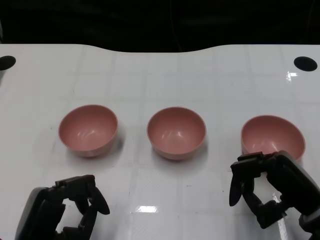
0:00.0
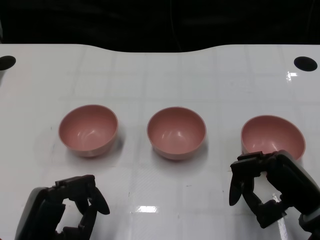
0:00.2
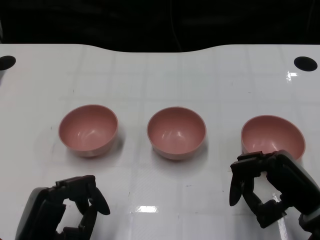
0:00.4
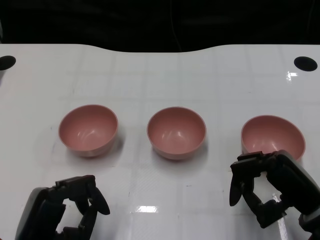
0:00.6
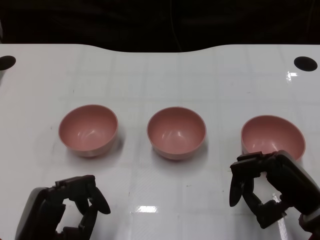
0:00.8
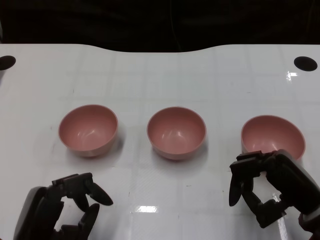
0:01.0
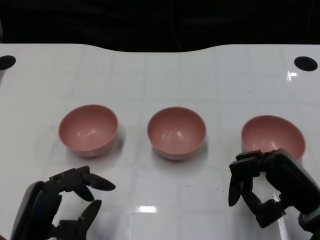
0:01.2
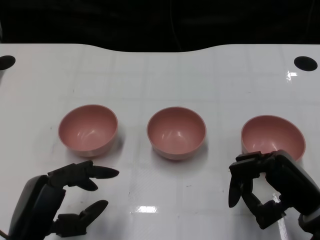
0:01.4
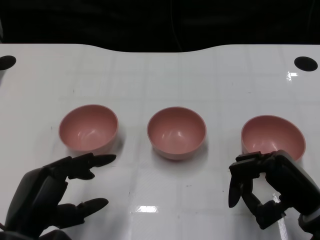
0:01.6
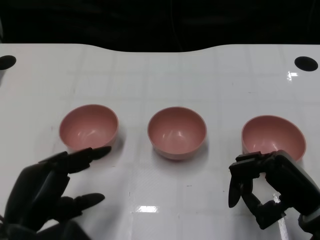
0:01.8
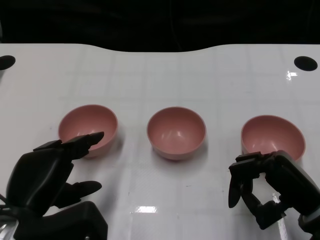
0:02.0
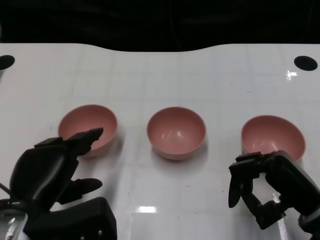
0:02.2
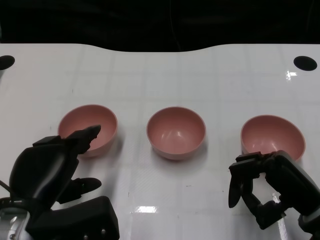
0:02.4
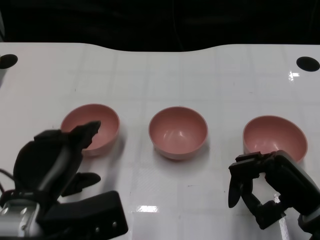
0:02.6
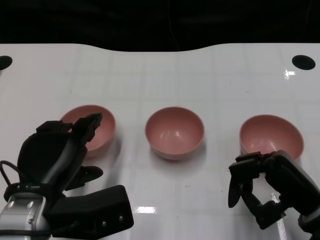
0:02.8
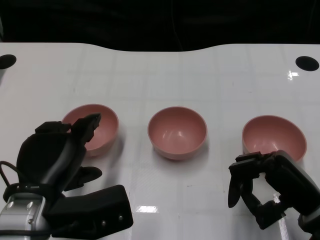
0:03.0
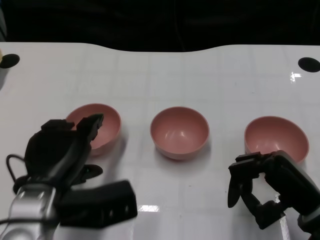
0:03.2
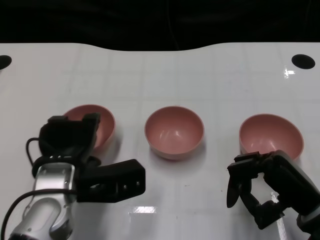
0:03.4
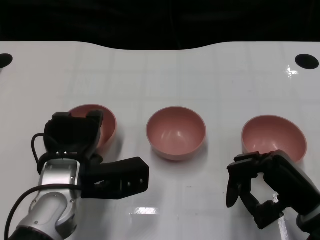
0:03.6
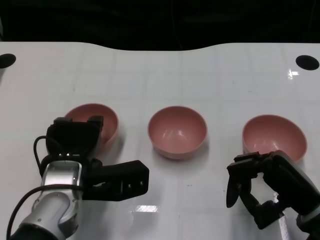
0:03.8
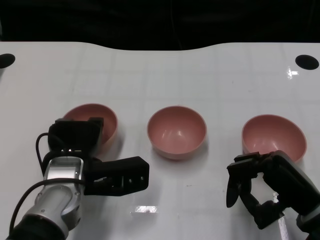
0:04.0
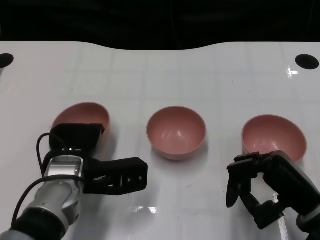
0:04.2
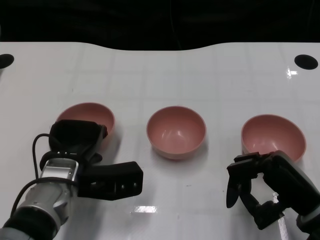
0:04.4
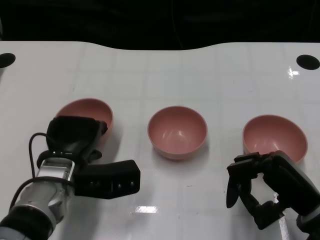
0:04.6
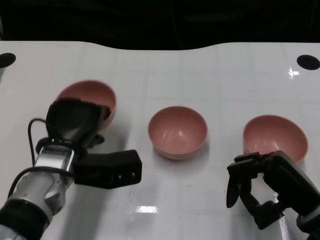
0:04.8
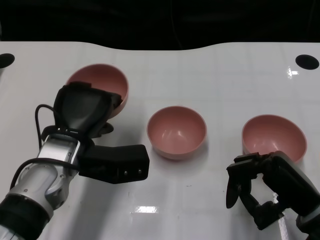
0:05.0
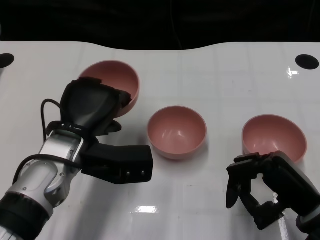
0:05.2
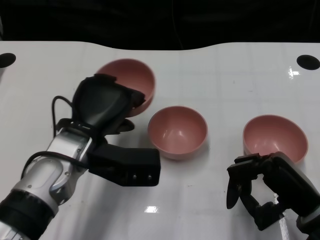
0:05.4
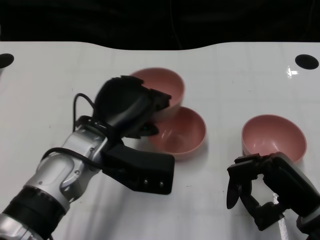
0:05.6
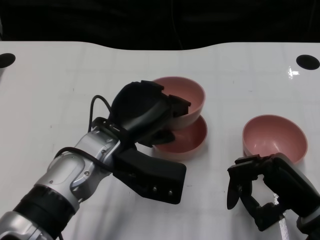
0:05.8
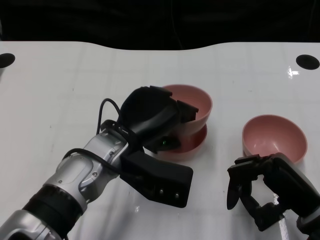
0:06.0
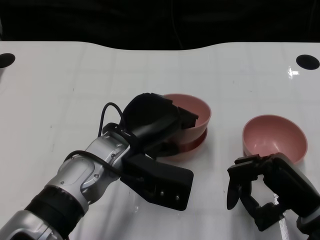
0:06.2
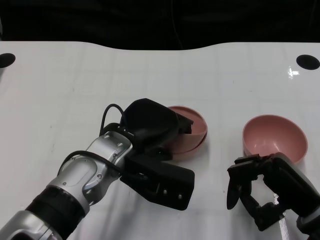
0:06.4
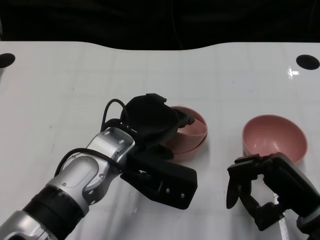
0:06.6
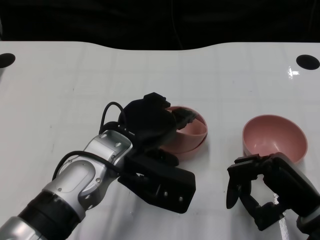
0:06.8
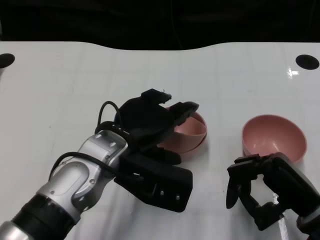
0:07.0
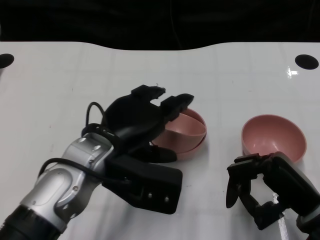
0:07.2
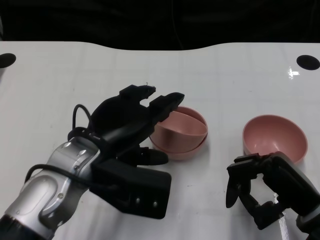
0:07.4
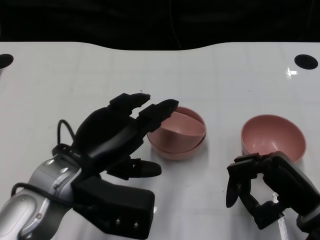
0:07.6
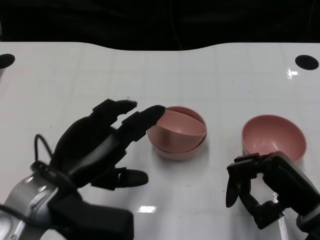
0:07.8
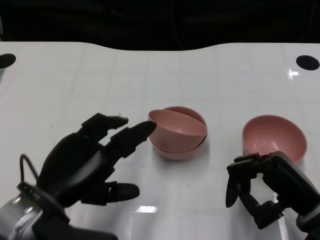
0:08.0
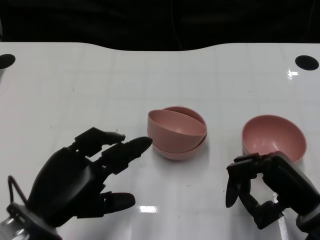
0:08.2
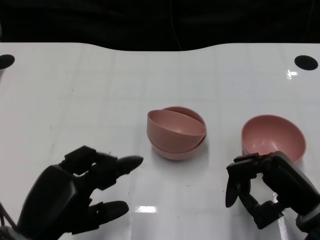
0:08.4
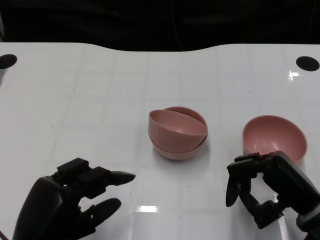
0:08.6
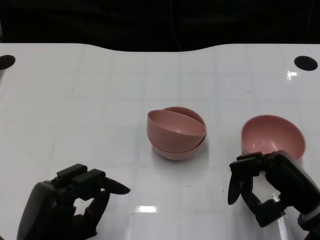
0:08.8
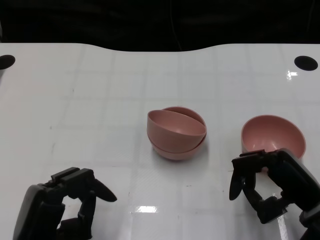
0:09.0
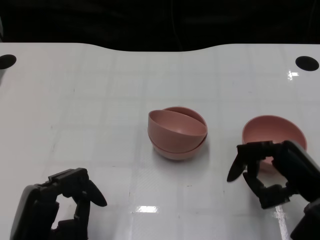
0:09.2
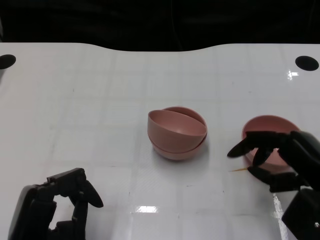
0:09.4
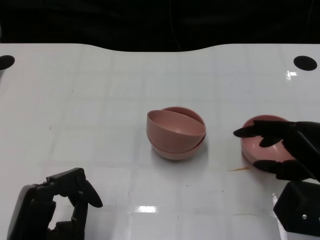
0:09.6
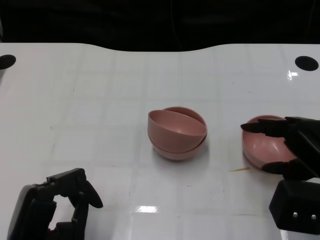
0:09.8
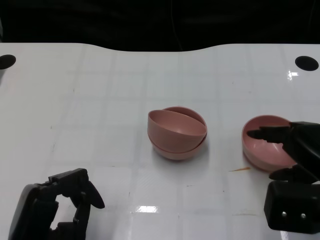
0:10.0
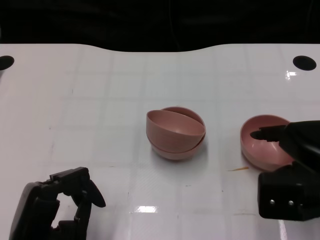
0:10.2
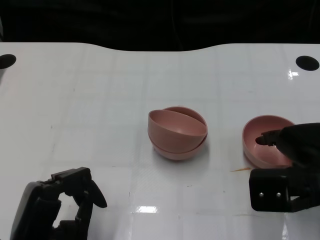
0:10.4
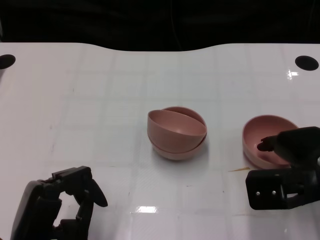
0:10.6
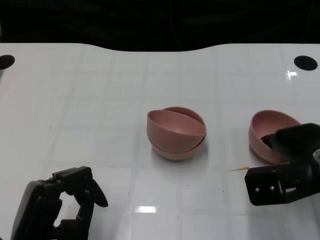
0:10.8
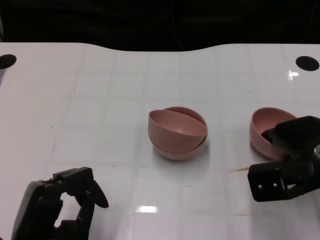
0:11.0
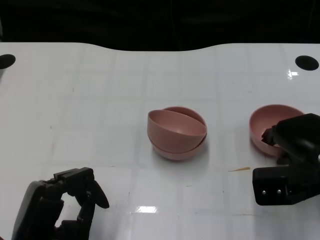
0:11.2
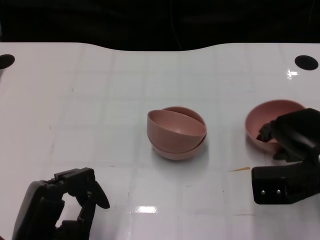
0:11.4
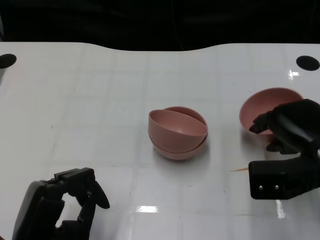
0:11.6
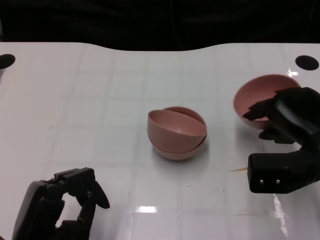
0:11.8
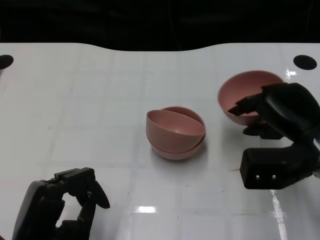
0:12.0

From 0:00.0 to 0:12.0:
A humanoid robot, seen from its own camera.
Task of the whole recording: Pick up the bowl on one side of the table and place it on top of the middle bowl, then pick up the bowl on the other side of the table and place it on top of the middle bowls.
Step, from 0:01.0 to 0:04.4: Grasp the bowl on the left with the left gripper.
Step, from 0:04.8 to 0:07.4: Place the bowl on the left onto the bowl in the middle with left gripper.
Step, from 0:07.6 to 0:11.2: Grasp the bowl on the right with the right gripper.
From 0:01.6 to 0:03.0: The left hand changes place by some 5 cm.
From 0:03.0 to 0:04.4: The left hand shifts approximately 10 cm forward and downward.
From 0:04.4 to 0:06.0: The left hand heads to the right and upward, covering some 10 cm.
From 0:06.0 to 0:07.6: The left hand heads to the left, covering about 5 cm.
From 0:07.6 to 0:09.0: The left hand shifts roughly 15 cm backward, downward and to the left.
From 0:09.0 to 0:10.4: The right hand heads upward, covering about 5 cm.

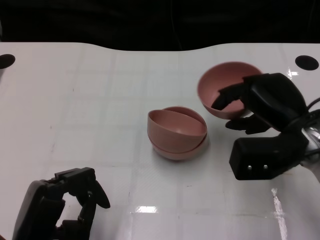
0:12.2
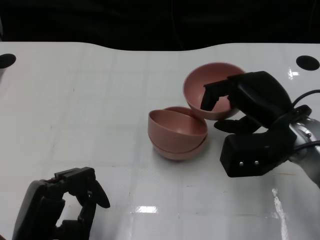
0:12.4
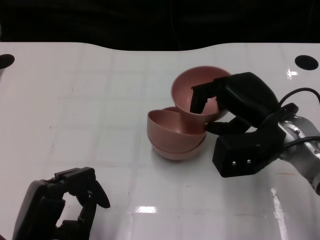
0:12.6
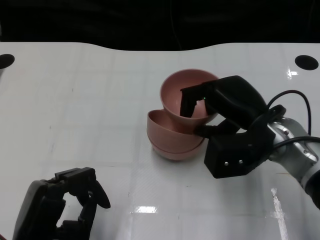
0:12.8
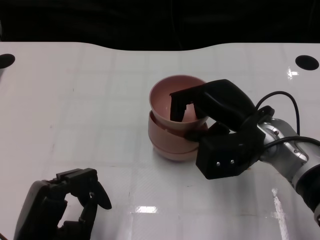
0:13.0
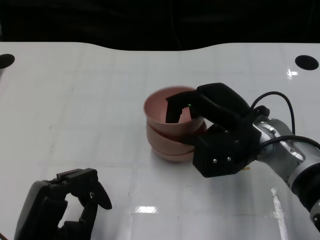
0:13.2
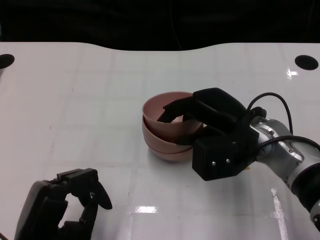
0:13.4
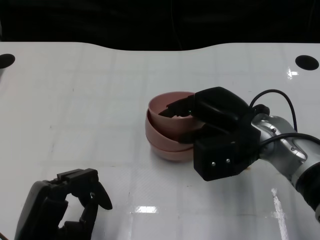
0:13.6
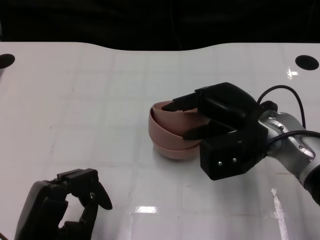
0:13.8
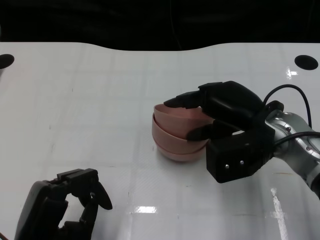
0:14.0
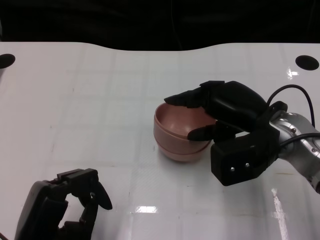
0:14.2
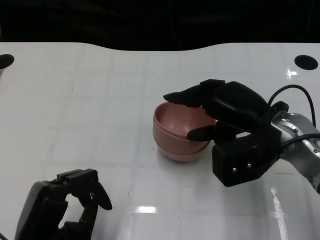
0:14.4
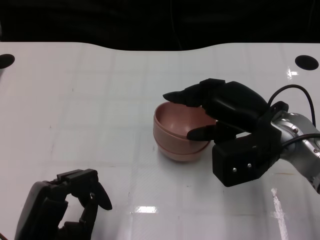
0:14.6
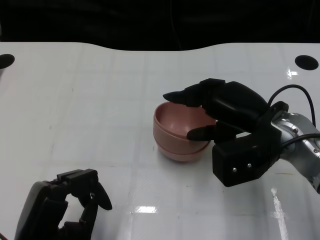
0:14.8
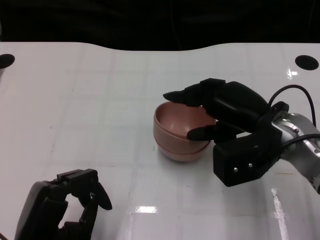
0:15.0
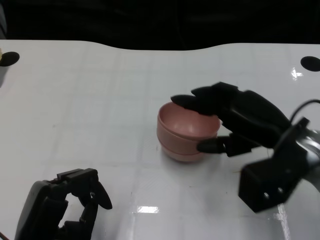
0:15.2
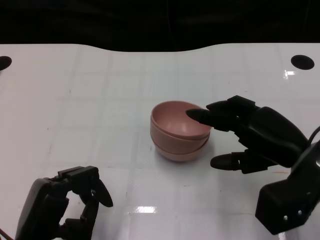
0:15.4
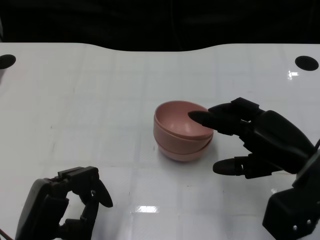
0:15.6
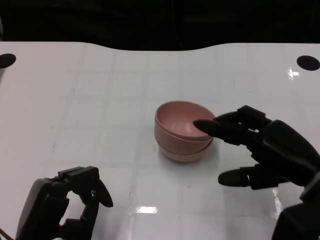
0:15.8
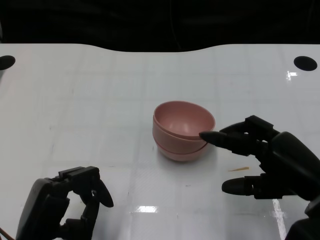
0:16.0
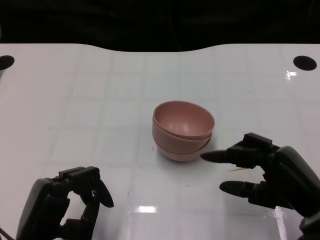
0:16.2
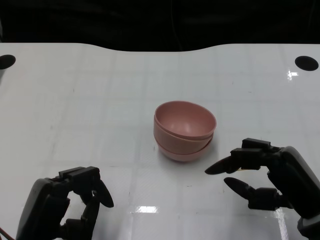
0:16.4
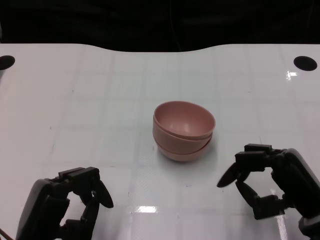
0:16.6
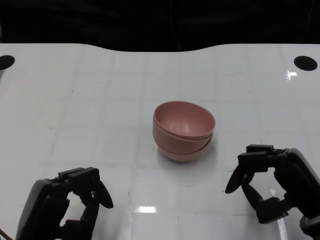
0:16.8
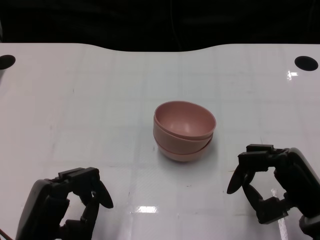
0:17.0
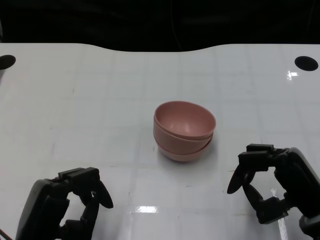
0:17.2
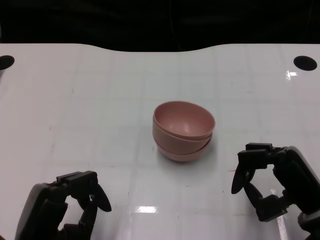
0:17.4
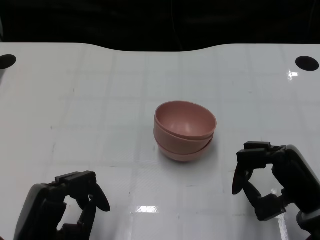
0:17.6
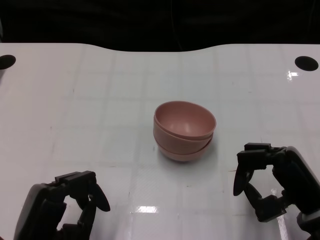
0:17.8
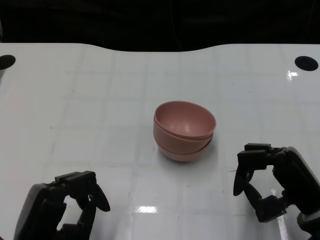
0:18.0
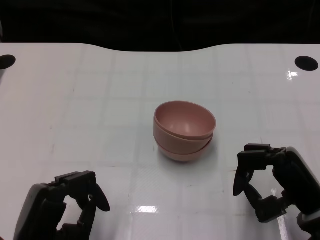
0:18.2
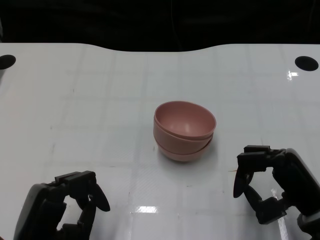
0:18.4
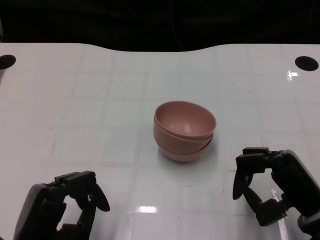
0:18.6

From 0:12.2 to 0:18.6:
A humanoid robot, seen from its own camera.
Task of the whole recording: Pick up the bowl on one side of the table and place it on top of the middle bowl, then pick up the bowl on the other side of the table and place it on top of the middle bowls.
Step, from 0:12.2 to 0:15.2: Place the bowl on the right onto the bowl in the middle with right gripper.
From 0:12.2 to 0:13.8: The right hand shifts roughly 5 cm to the left.
From 0:13.8 to 0:15.4: The right hand shifts approximately 10 cm to the right and backward.
From 0:15.4 to 0:17.0: The right hand travels backward and downward by approximately 10 cm.
From 0:17.0 to 0:18.6: Both hands stay put.

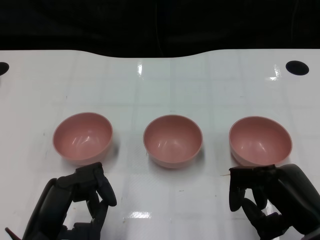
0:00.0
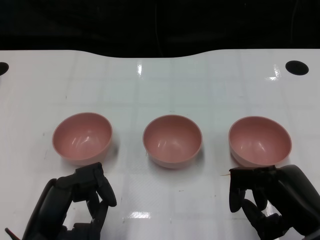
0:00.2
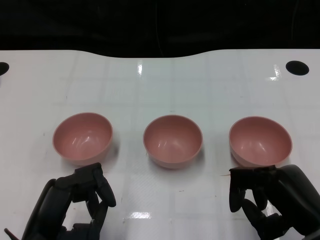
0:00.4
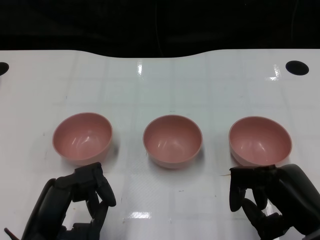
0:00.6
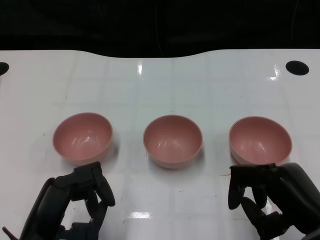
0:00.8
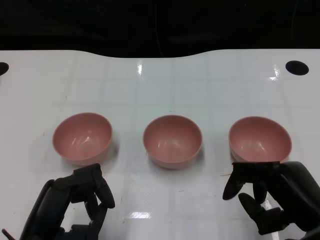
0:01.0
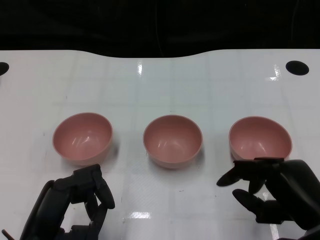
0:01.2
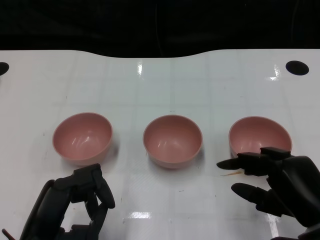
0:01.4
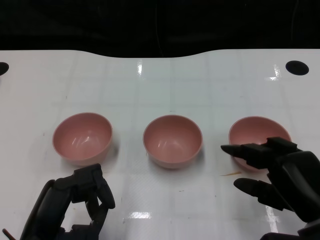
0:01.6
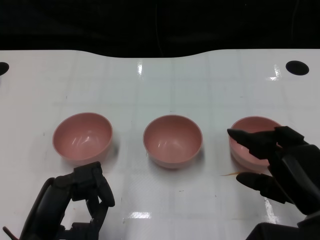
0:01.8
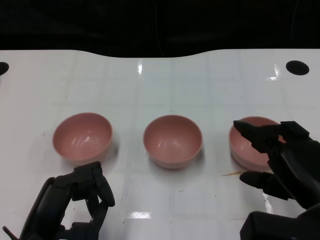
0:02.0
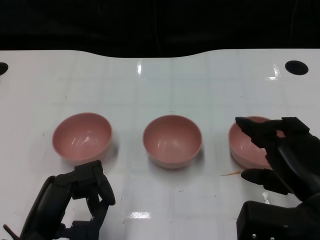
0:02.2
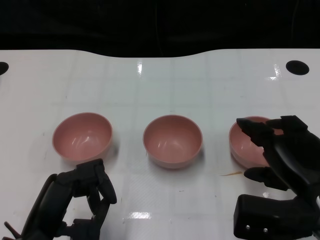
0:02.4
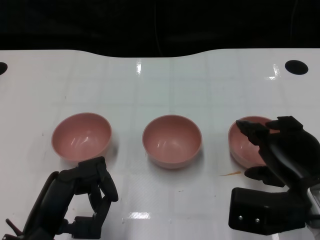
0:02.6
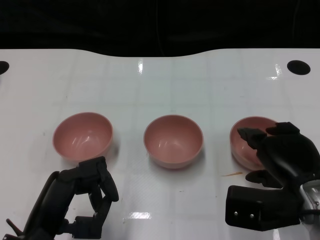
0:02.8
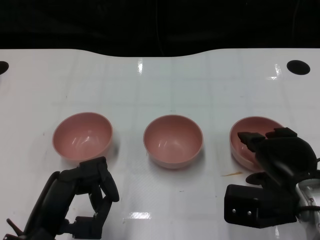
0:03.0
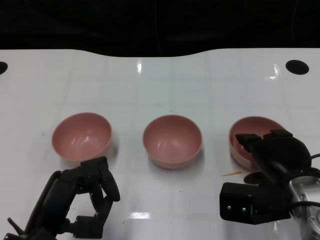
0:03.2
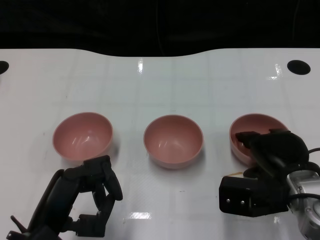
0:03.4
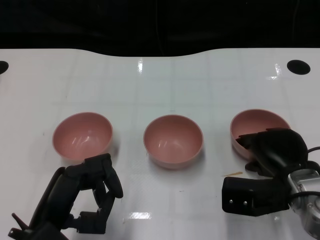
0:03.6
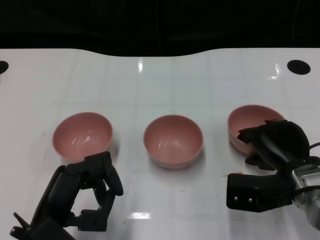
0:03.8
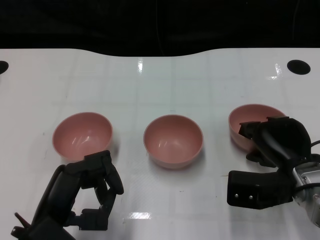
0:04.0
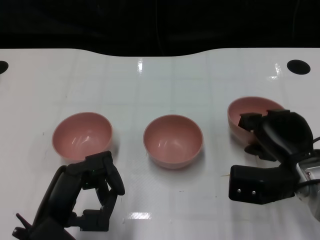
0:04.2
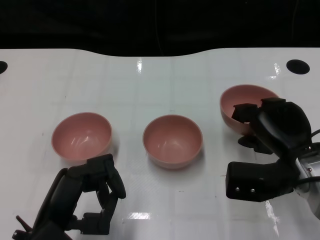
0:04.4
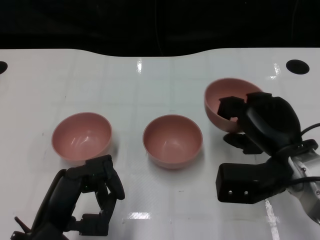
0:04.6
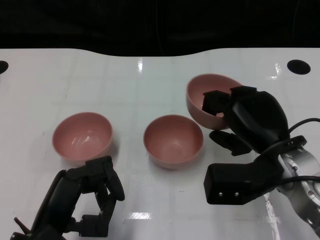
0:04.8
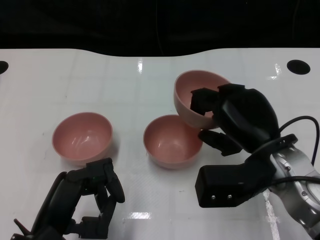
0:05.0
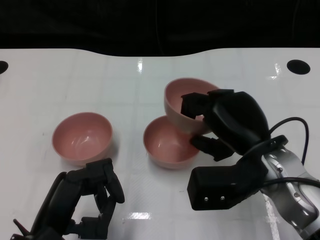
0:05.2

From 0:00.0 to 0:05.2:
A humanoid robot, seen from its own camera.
Task of the whole recording: Pick up the bowl on one side of the table and place it on top of the middle bowl, then pick up the bowl on the other side of the table and place it on top of the middle bowls.
Step, from 0:01.0 to 0:04.2: Grasp the bowl on the right with the right gripper.
From 0:01.8 to 0:03.4: The right hand goes roughly 10 cm forward.
From 0:03.4 to 0:05.2: The right hand heads upward and to the left, covering roughly 10 cm.
